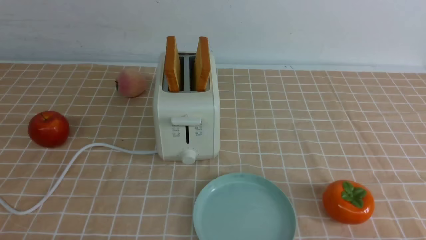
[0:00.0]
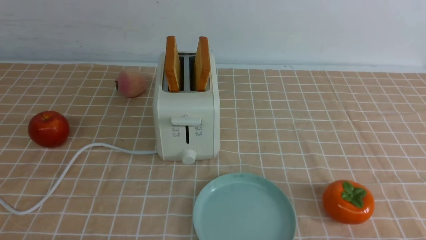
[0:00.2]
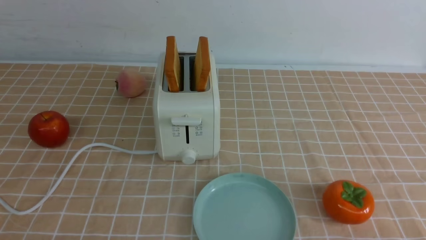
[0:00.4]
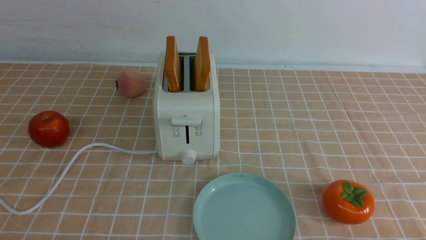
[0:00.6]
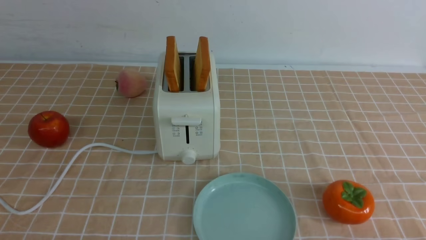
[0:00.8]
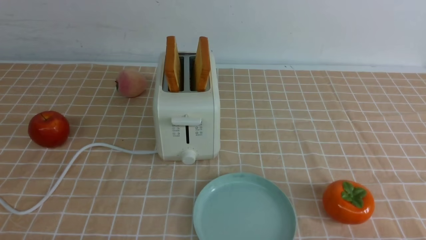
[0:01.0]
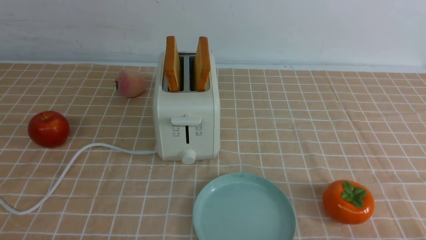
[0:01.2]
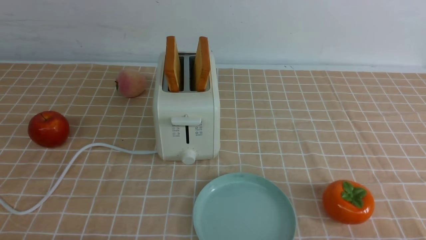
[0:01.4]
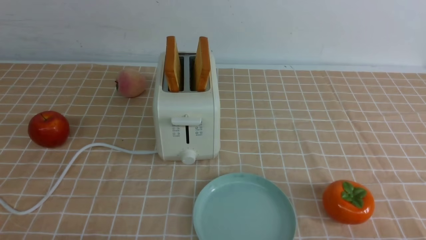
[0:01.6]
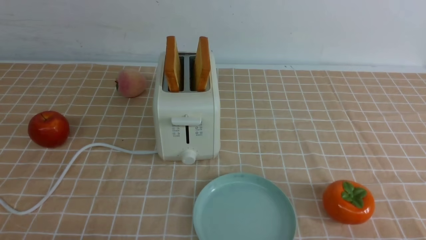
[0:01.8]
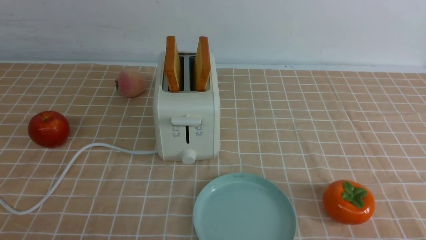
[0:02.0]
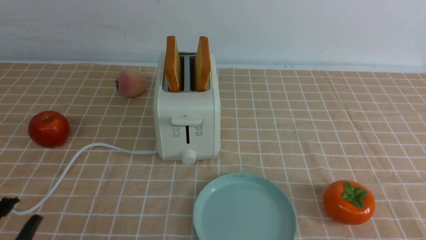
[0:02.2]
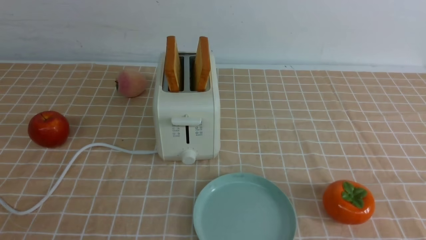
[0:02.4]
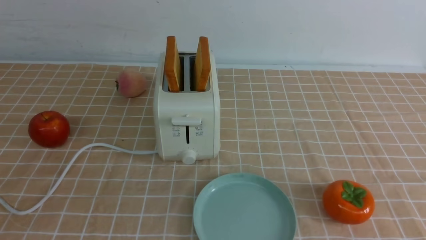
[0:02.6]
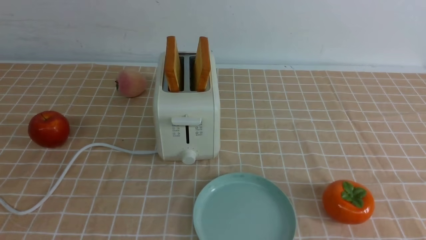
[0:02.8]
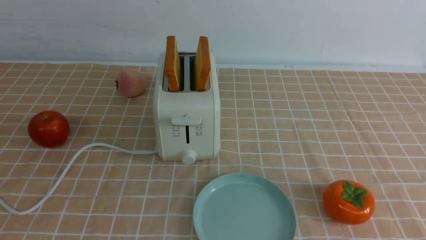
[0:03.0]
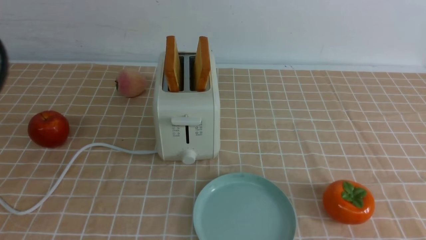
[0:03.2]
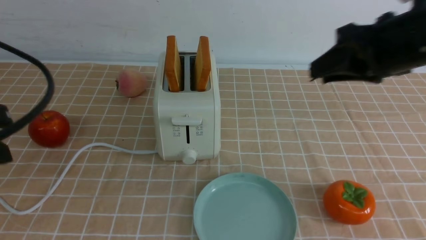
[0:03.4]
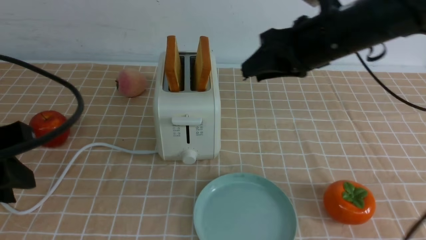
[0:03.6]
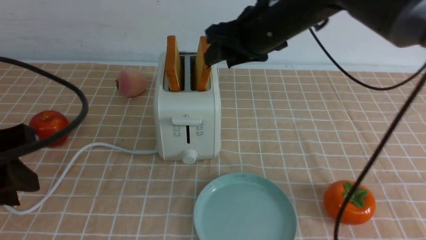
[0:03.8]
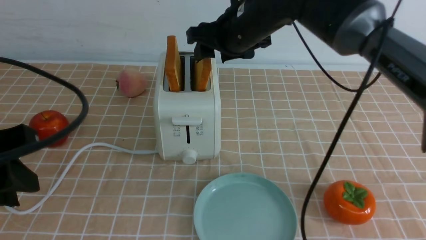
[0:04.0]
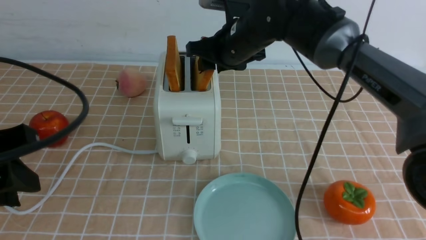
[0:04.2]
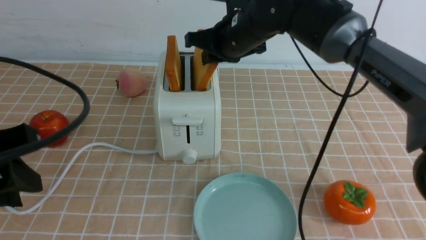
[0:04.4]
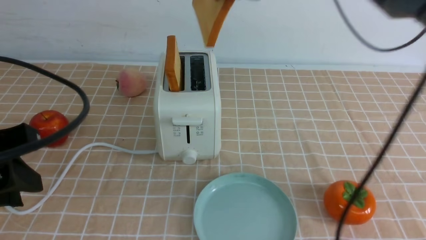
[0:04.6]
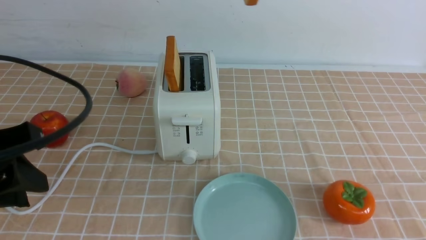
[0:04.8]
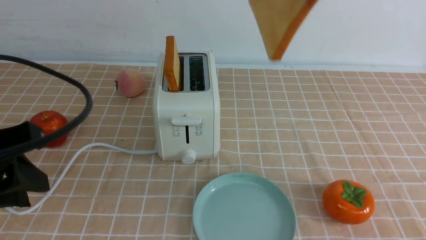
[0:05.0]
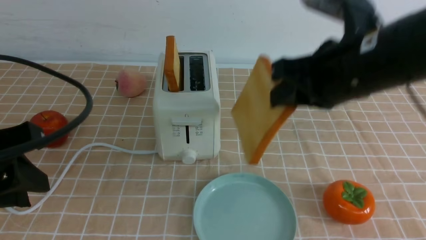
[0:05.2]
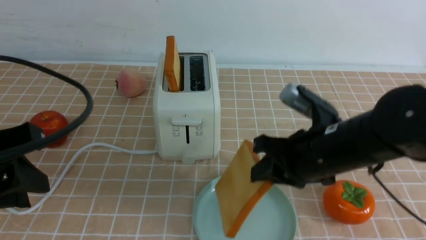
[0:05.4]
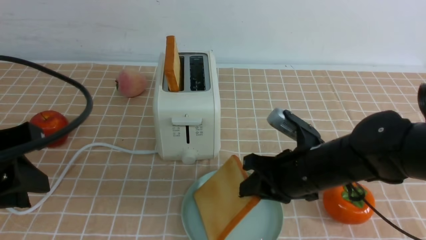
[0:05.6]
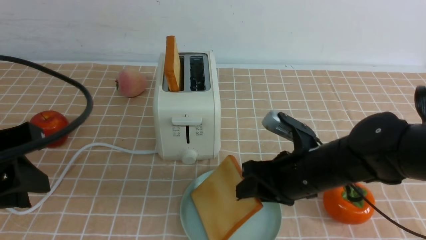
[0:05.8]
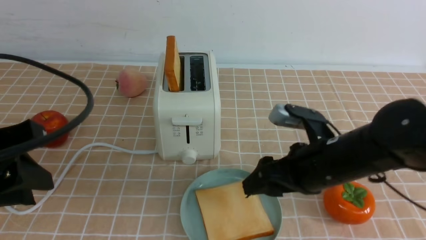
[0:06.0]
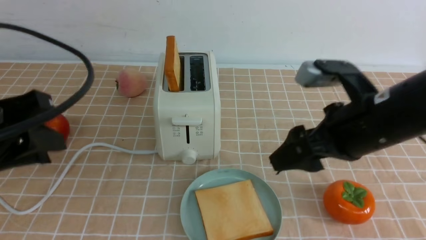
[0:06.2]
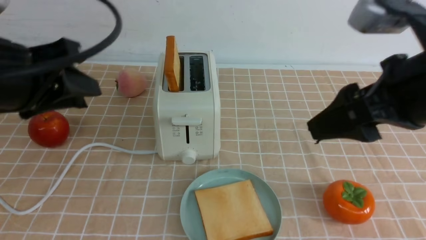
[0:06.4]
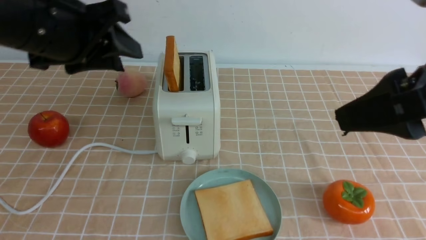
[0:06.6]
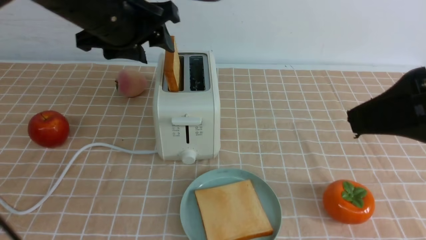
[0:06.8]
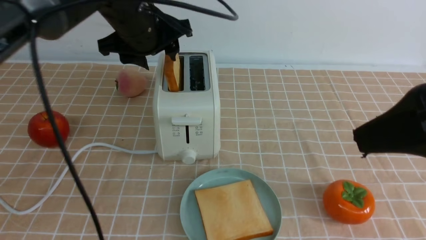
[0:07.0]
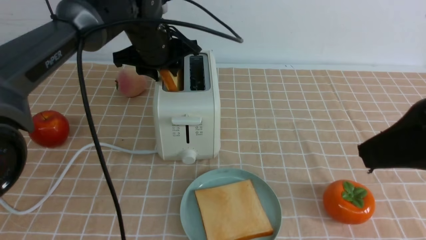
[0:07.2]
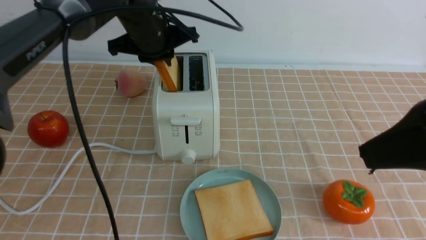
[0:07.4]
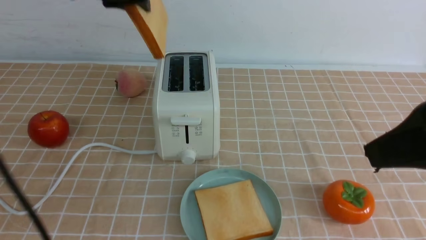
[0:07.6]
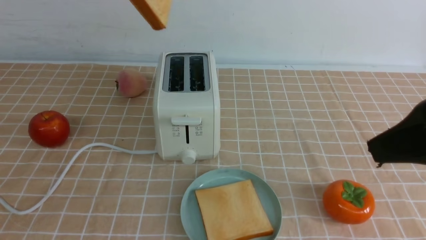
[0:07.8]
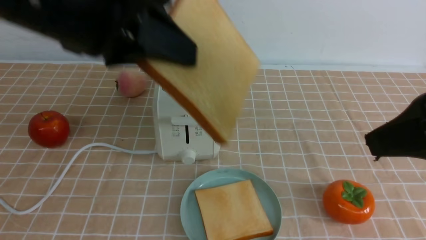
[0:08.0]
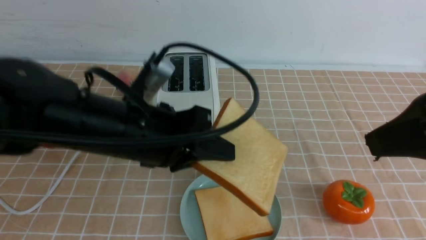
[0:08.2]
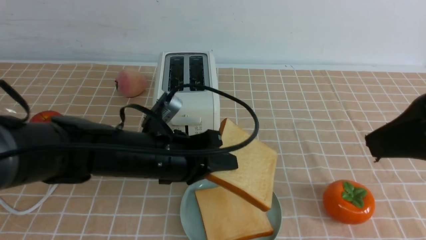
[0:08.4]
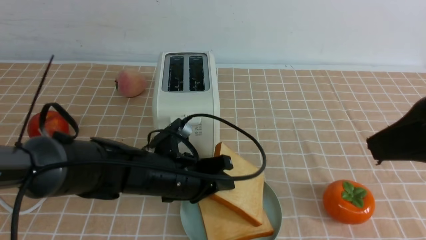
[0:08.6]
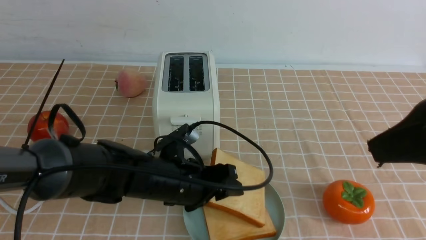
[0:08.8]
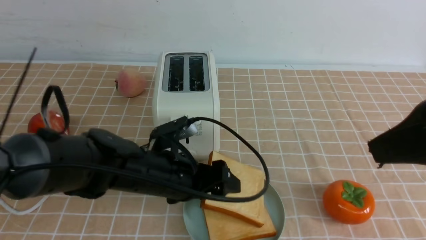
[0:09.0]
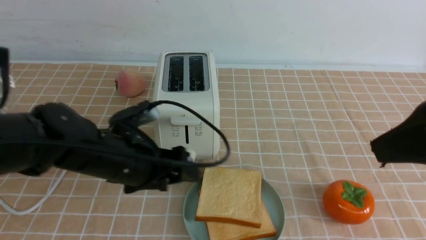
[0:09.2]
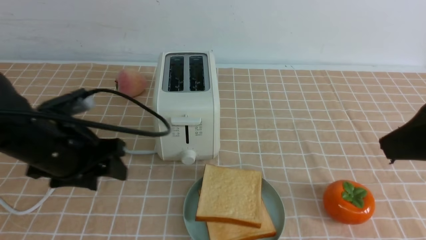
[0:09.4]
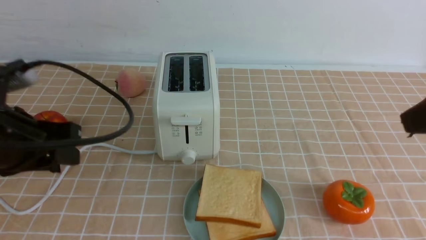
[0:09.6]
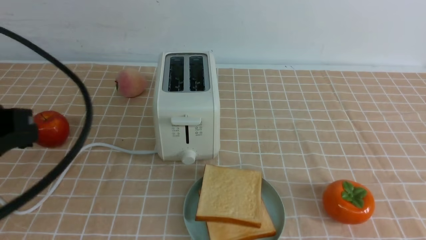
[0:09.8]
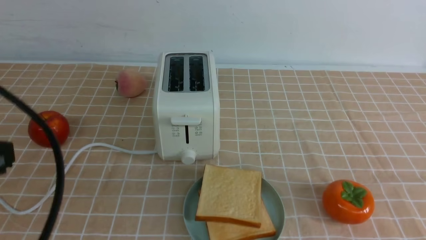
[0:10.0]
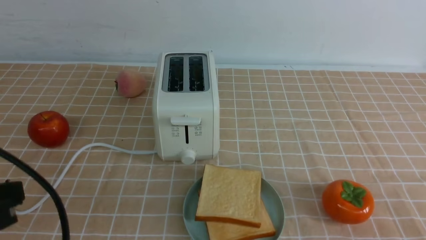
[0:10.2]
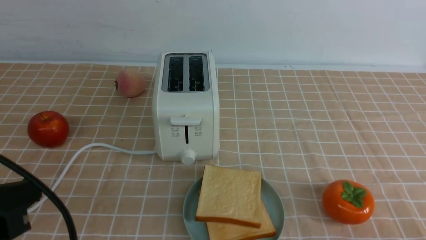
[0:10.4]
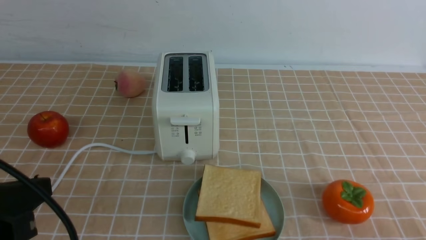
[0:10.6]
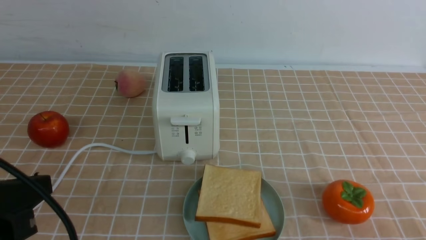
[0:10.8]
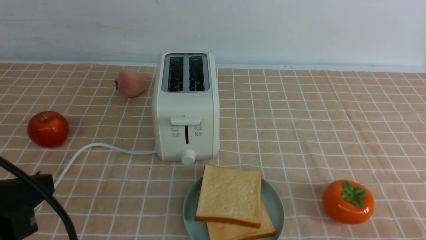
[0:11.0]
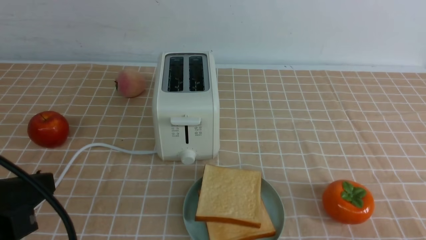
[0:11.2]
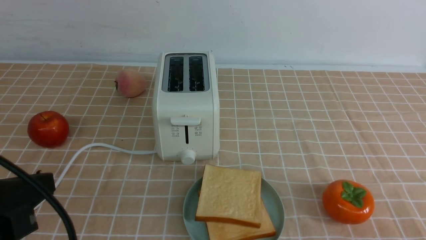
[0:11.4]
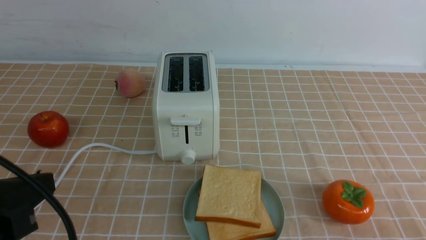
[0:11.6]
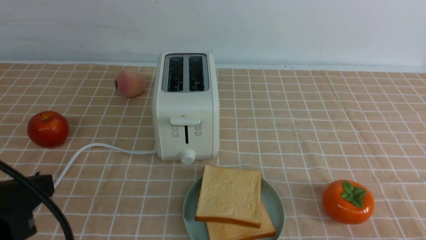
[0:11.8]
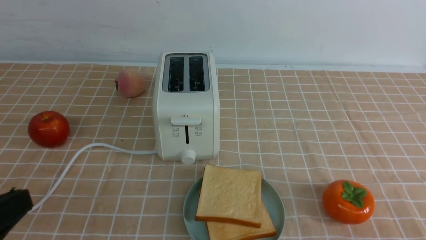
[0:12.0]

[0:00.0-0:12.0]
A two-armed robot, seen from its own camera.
Task of the whole recording: take toasted bread from bread machine on light coffee tablecloth place on plate.
Step, 0:00.0 to 0:04.4: use the right arm to take out a slice of bread.
Step, 0:04.6 to 0:06.0: use the right arm to put a slice of bread into the plate.
Step, 0:06.2 to 0:07.4: use the left arm to take out a slice of bread.
Step, 0:07.6 to 0:09.0: use the left arm to put a slice of bread into the empty plate.
0:03.0 to 0:04.4: The left gripper goes roughly 10 cm downward and forward; the right gripper shifts roughly 40 cm forward, to the left and downward.
0:04.4 to 0:06.0: The right gripper heads backward, downward and to the right, covering approximately 20 cm, and opens.
0:06.0 to 0:07.6: The right gripper shifts about 25 cm upward, backward and to the right. The left gripper shifts roughly 25 cm forward and to the right.
0:07.6 to 0:09.0: The left gripper heads downward and backward, covering about 25 cm, and opens up.
0:09.0 to 0:10.4: The right gripper moves downward, backward and to the right, roughly 20 cm, and closes its fingers. The left gripper shifts roughly 25 cm backward, to the left and upward, and closes up.
0:10.4 to 0:12.0: The grippers make only small movements.

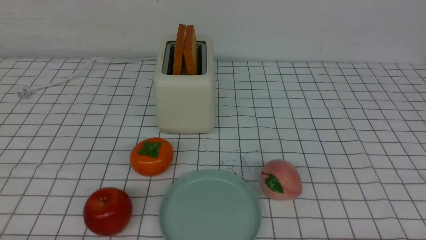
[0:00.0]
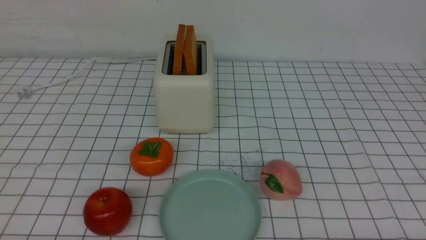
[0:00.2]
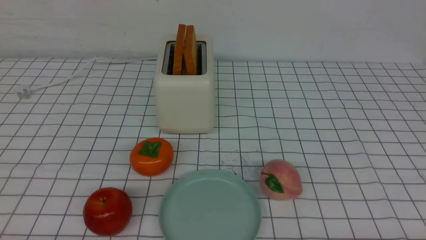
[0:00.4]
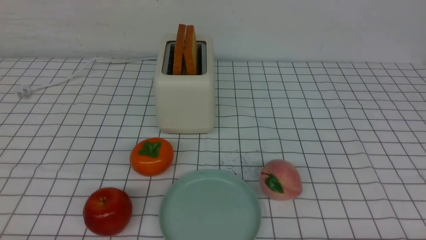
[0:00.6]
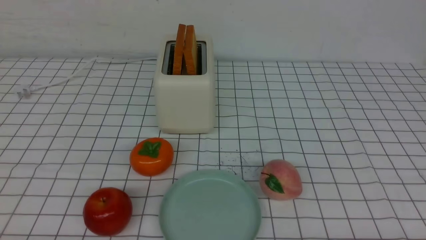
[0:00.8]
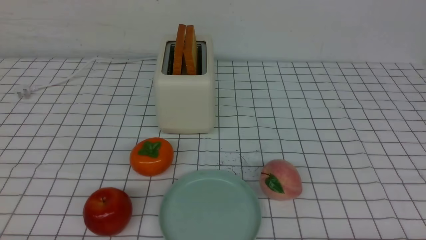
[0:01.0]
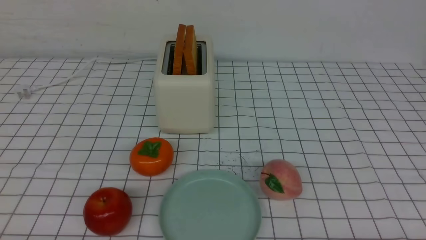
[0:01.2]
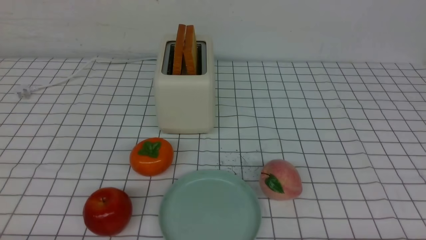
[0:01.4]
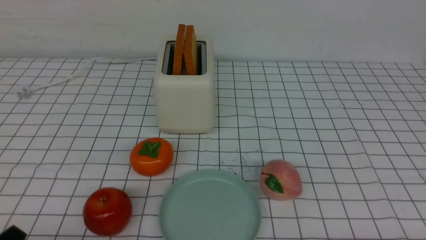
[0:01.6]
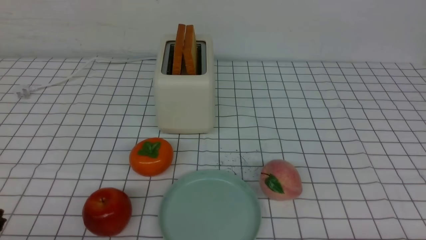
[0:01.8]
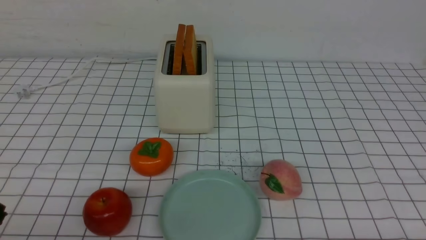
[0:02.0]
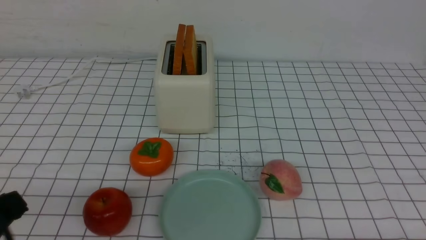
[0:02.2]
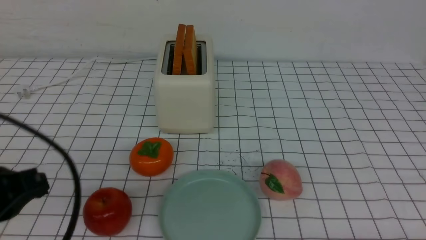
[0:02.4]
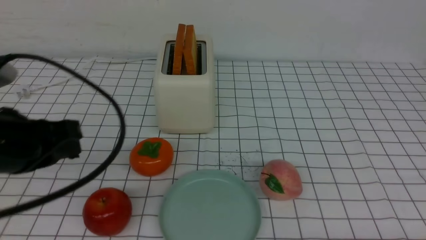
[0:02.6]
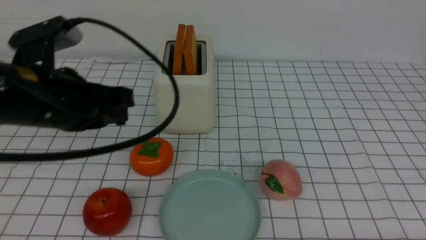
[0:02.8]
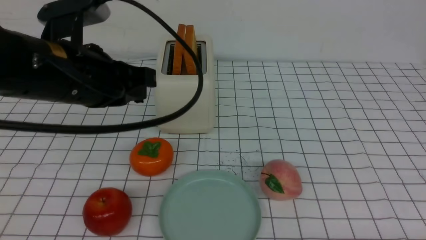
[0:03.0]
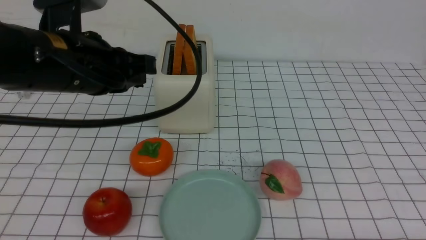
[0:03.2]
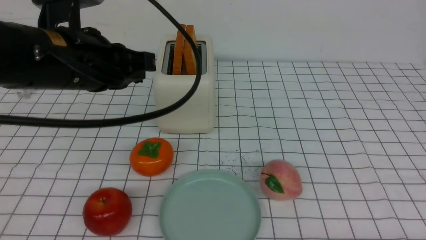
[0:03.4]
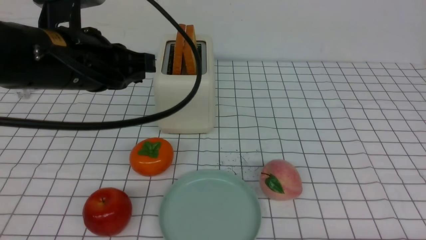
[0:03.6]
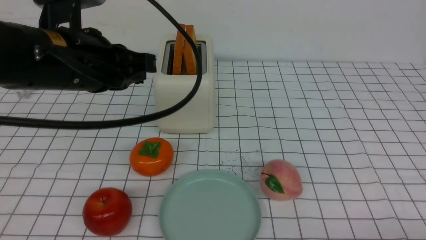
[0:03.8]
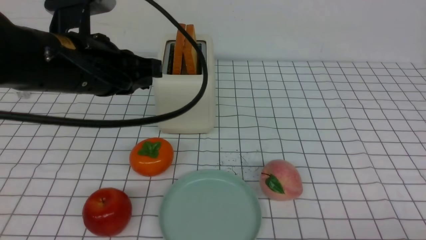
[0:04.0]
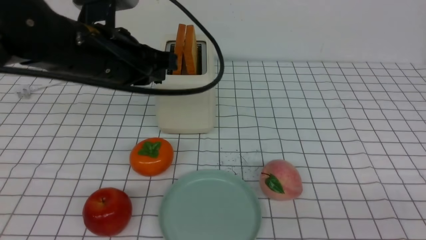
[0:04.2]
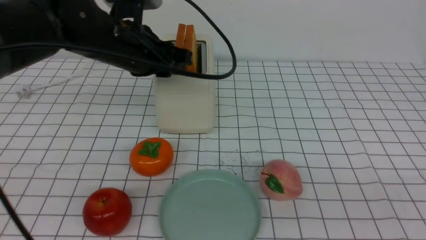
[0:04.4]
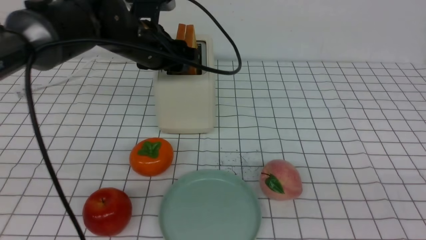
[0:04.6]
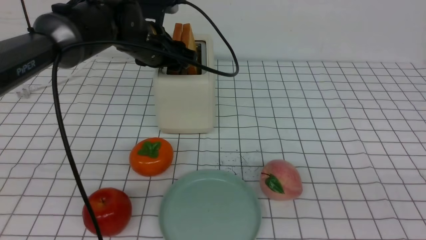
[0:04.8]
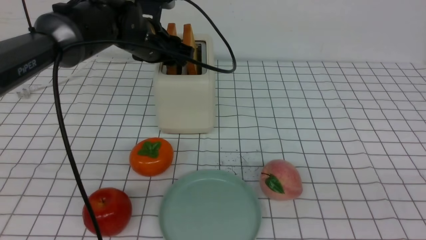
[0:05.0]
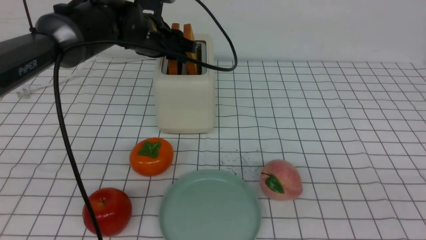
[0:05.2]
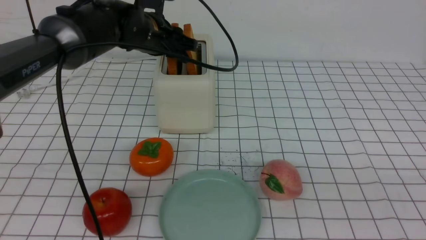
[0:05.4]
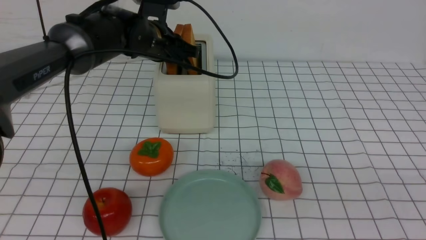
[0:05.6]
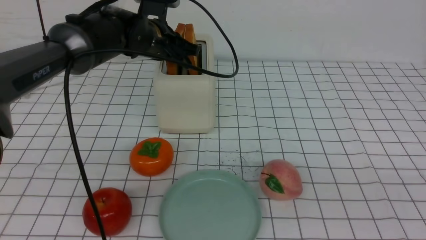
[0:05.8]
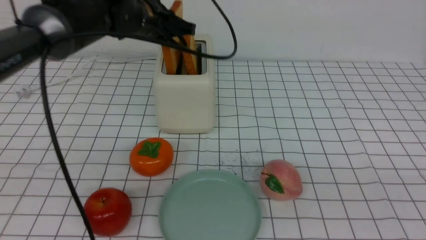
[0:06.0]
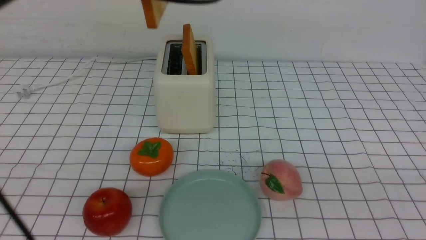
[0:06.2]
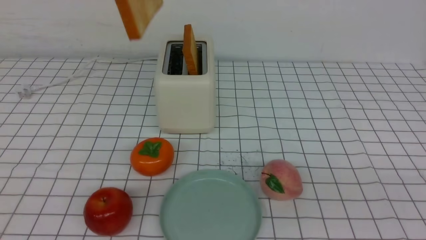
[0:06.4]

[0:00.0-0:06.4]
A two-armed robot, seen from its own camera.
Task of the whole recording: take toasted bread from bread machine on white checkered table place on plate.
Step, 0:00.0 to 0:06.0: use the left arm to take out a slice of bread.
0:01.6 to 0:03.2: The left gripper is displaced forward, upward and to the right by about 30 cm, and closes.
0:03.2 to 0:04.8: The left gripper travels forward by about 15 cm, and opens its fingers, while the right gripper heads upward, covering some 20 cm, and closes up.
0:04.8 to 0:06.4: The left gripper shifts roughly 20 cm backward and upward, and closes up.
